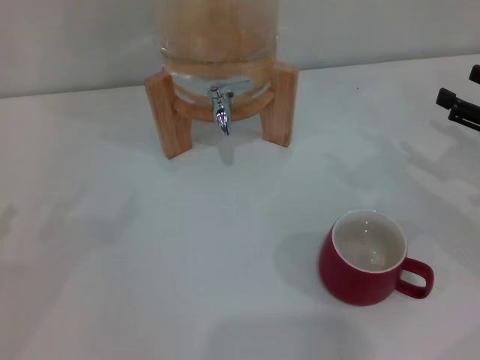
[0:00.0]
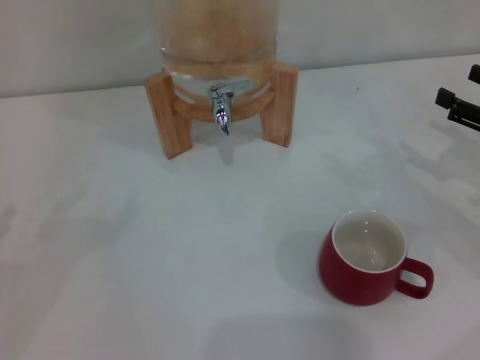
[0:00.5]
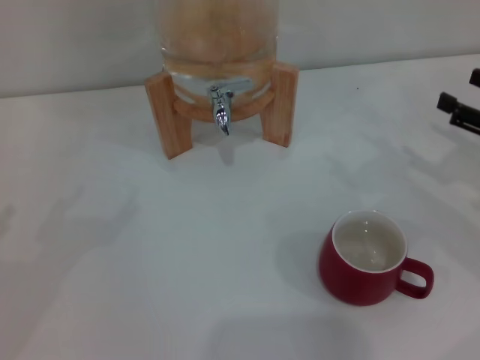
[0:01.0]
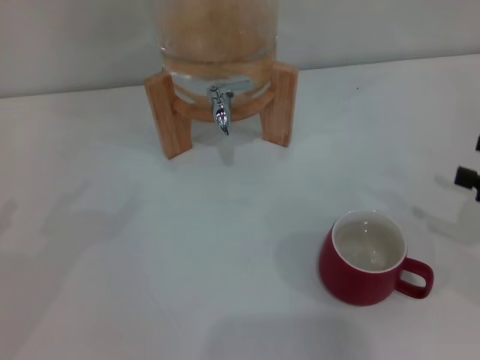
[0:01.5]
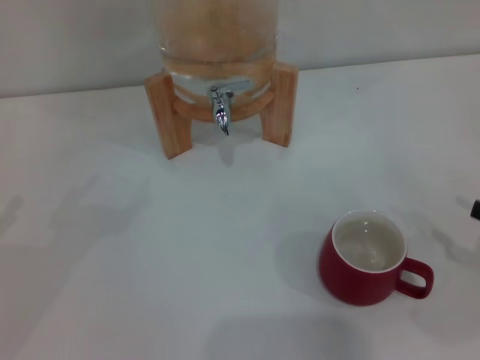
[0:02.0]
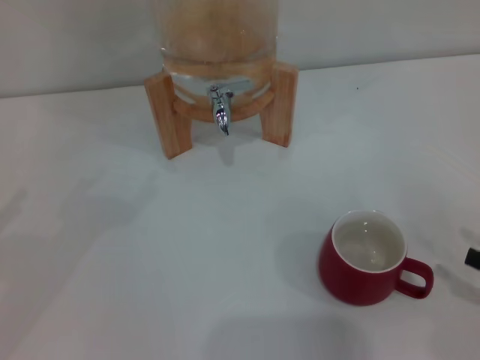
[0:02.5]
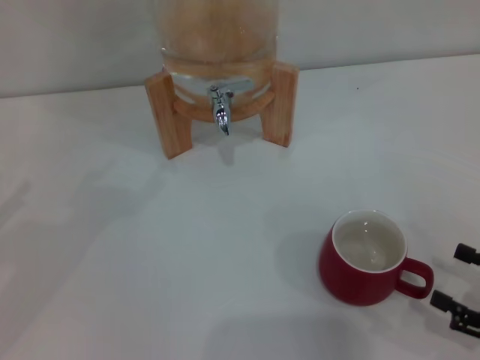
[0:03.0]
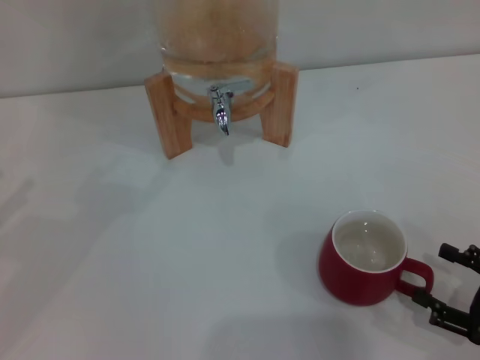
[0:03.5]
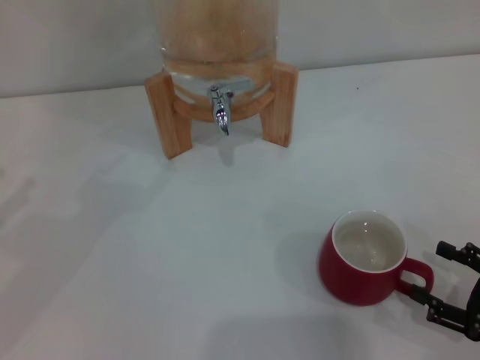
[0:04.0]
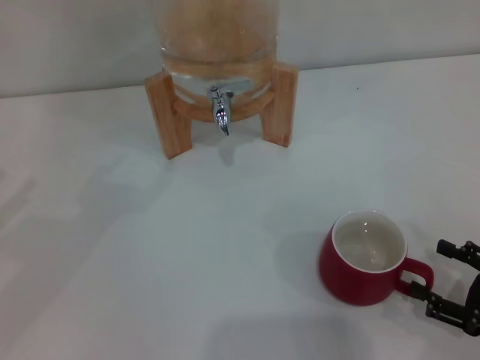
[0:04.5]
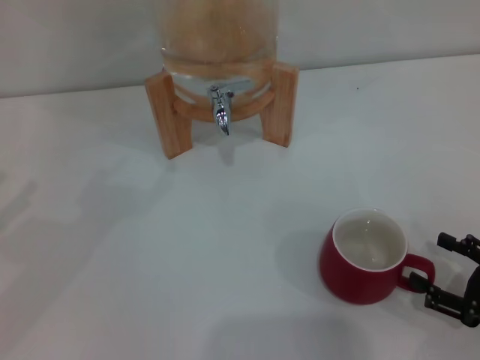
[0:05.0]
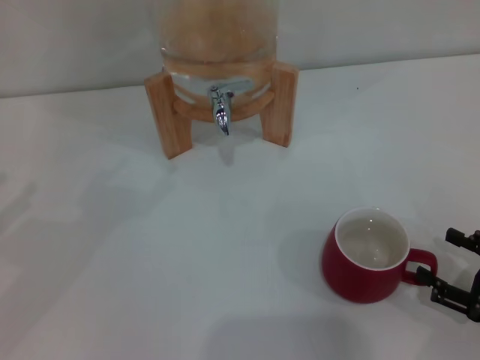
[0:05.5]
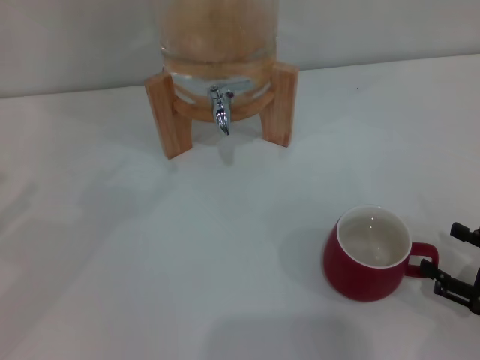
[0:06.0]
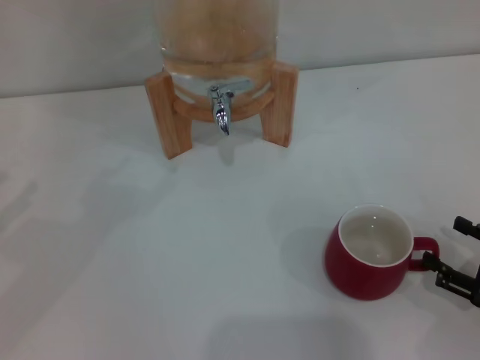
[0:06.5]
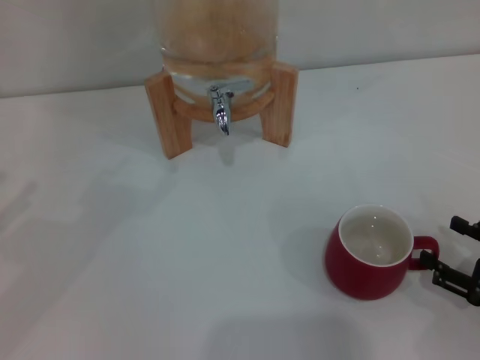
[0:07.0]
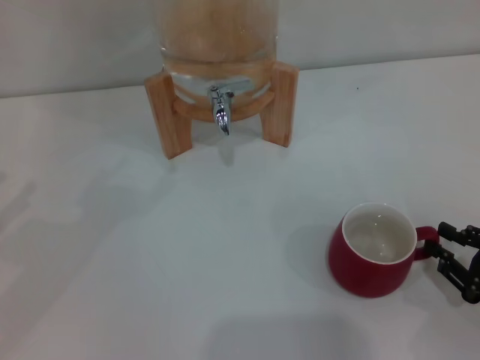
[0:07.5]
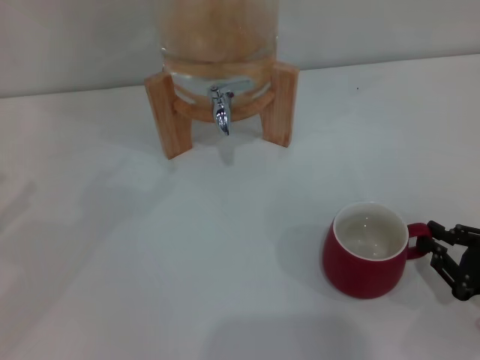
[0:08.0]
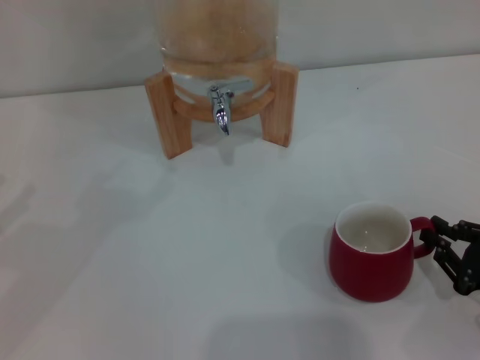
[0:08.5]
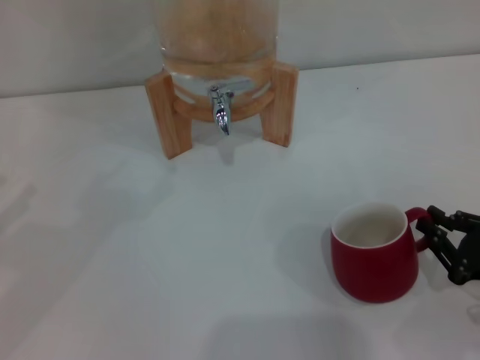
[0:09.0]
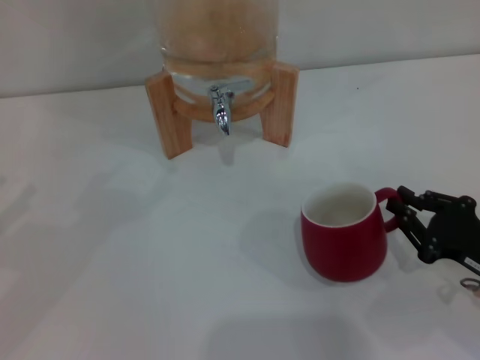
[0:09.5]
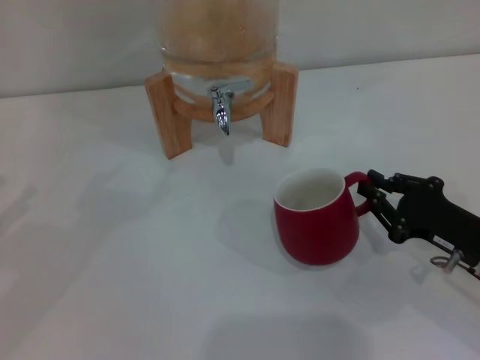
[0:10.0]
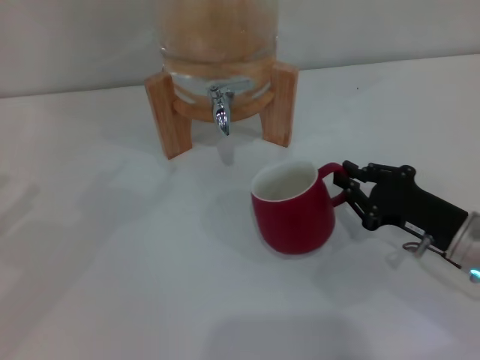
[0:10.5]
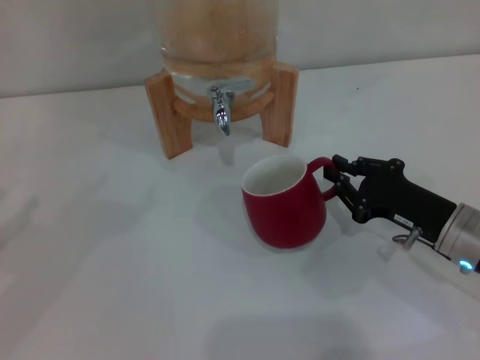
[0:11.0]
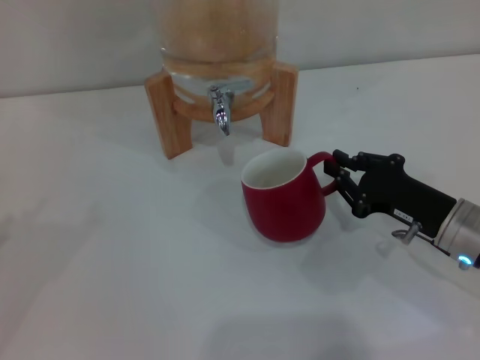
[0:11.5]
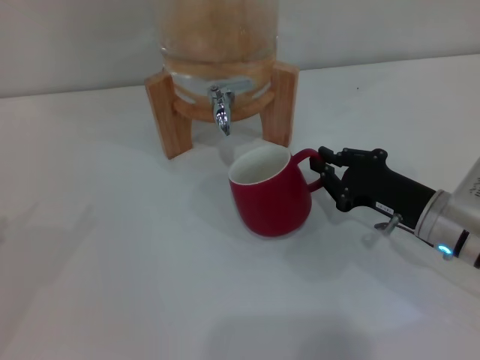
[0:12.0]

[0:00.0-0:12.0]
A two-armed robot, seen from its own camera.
Task of the whole recording: the right gripper pick up the red cup and place it horizontally under the faucet, the left gripper turn on the faucet to fill the cup, and then turn off the faucet.
0:00.0 to 0:02.0: The right gripper travels backward by some 10 cm.
0:02.0 to 0:04.0: The right gripper travels downward and to the left by roughly 10 cm.
0:04.0 to 0:06.0: The grippers move only a little.
0:06.0 to 0:08.0: The right gripper closes its fingers.
0:08.0 to 0:10.0: The right gripper is displaced forward by some 5 cm.
0:10.0 to 0:12.0: The right gripper is displaced forward by approximately 5 cm.

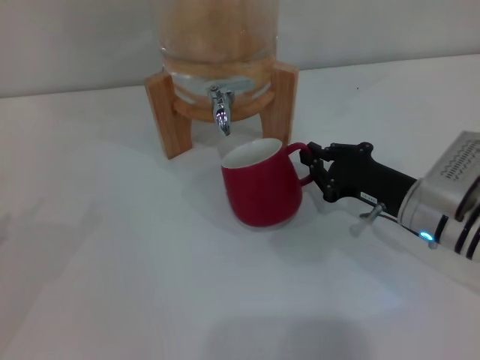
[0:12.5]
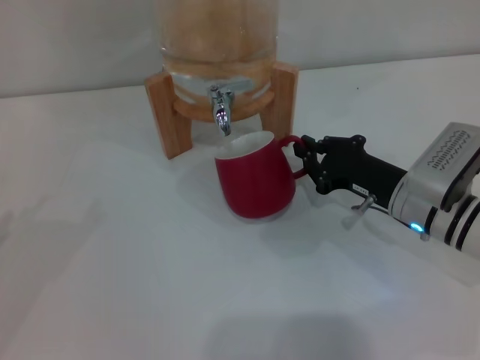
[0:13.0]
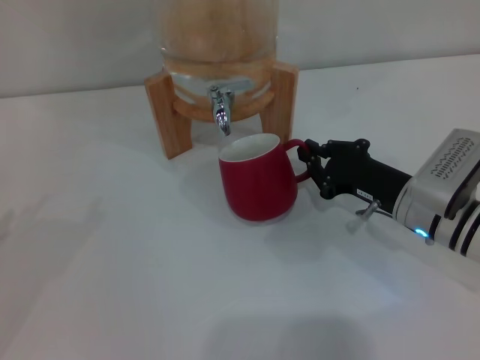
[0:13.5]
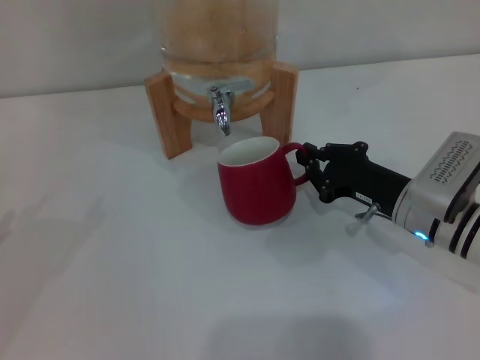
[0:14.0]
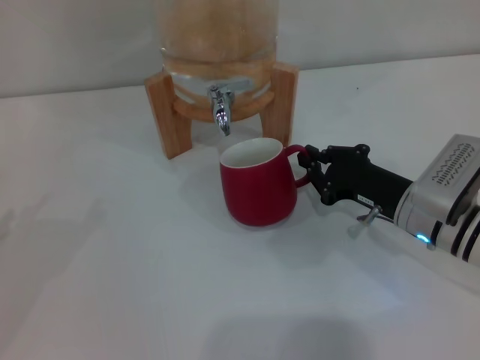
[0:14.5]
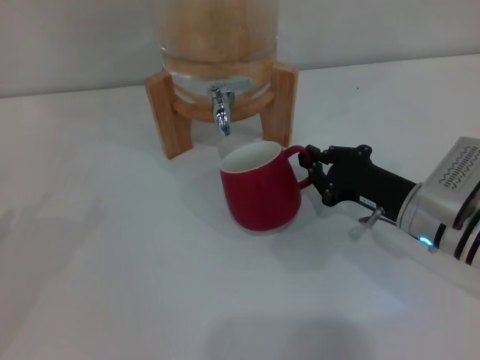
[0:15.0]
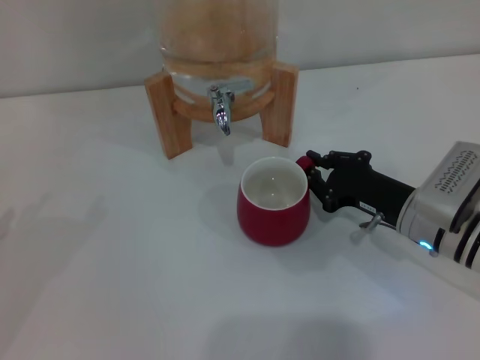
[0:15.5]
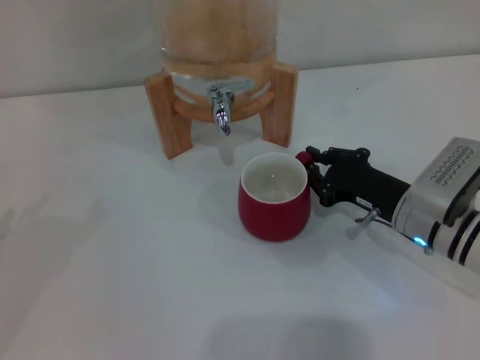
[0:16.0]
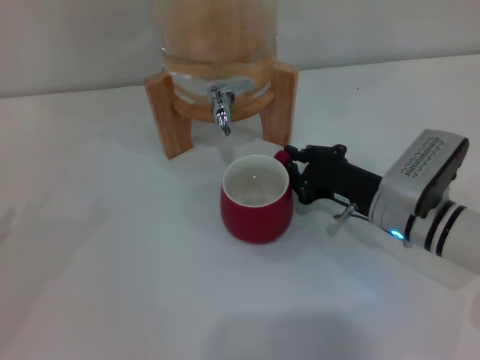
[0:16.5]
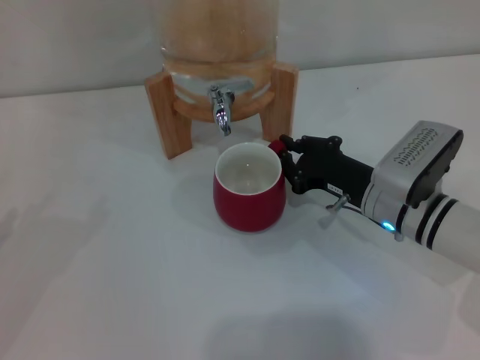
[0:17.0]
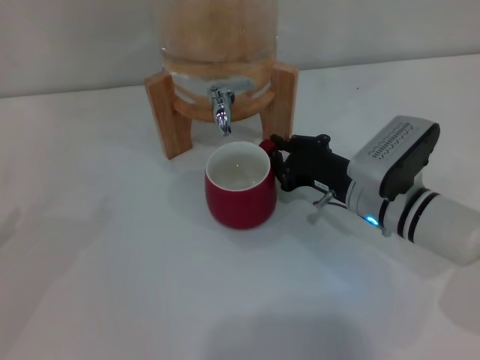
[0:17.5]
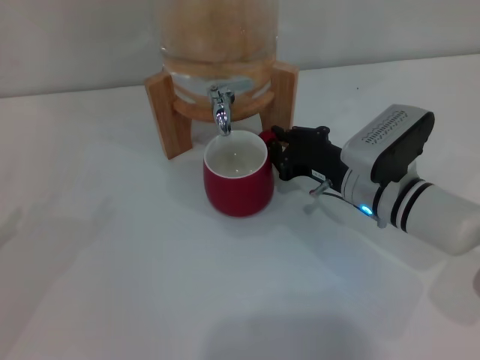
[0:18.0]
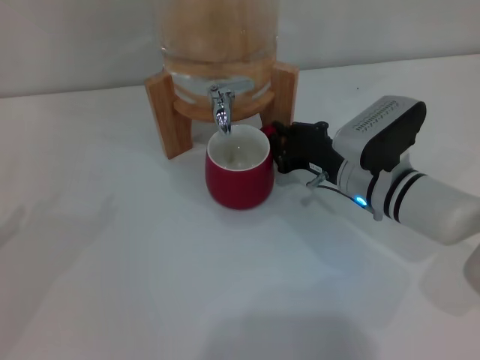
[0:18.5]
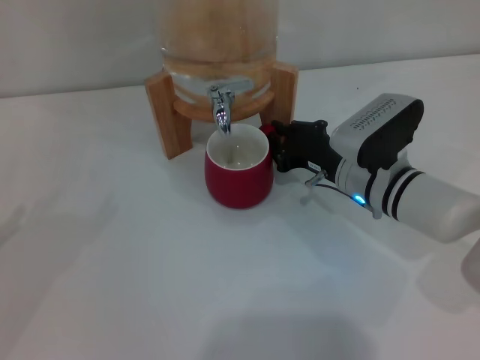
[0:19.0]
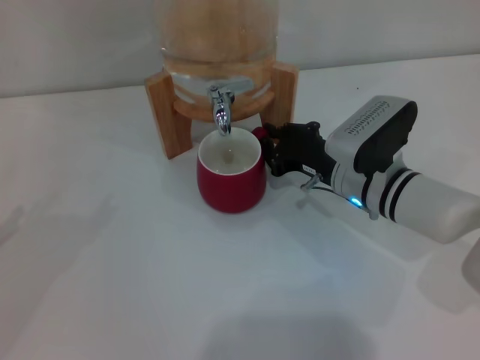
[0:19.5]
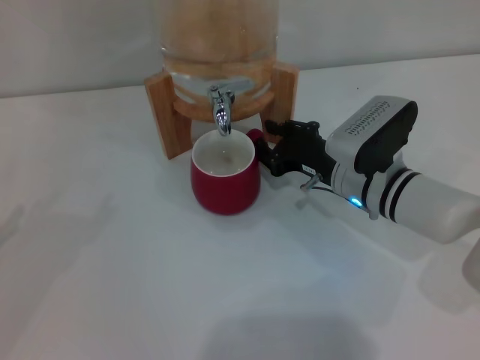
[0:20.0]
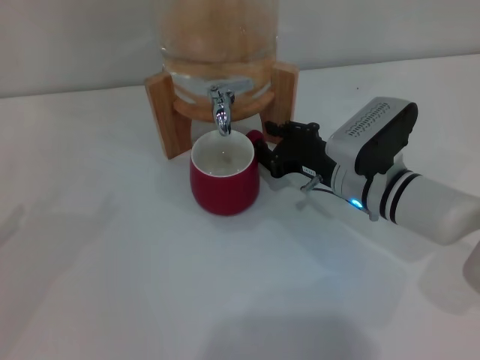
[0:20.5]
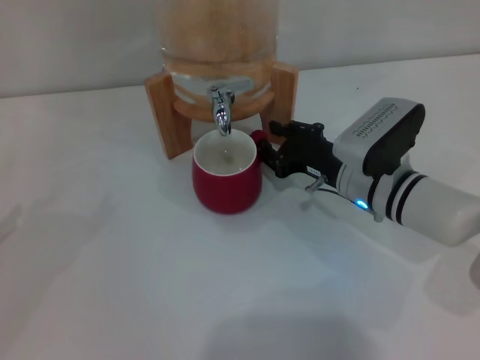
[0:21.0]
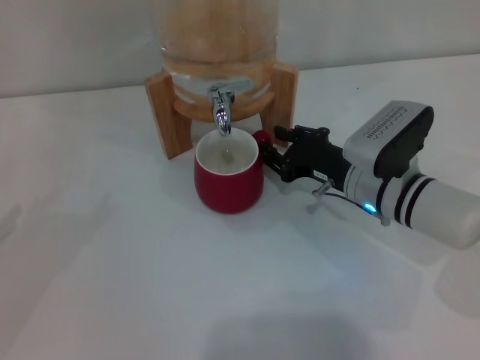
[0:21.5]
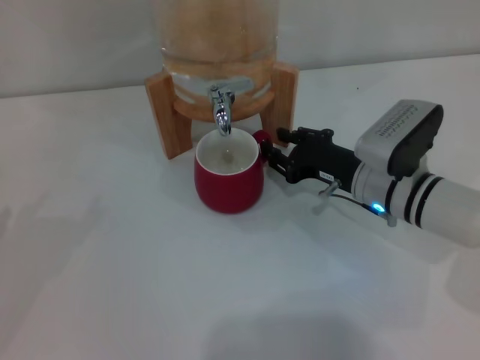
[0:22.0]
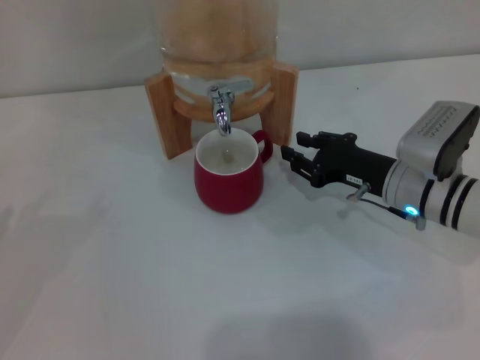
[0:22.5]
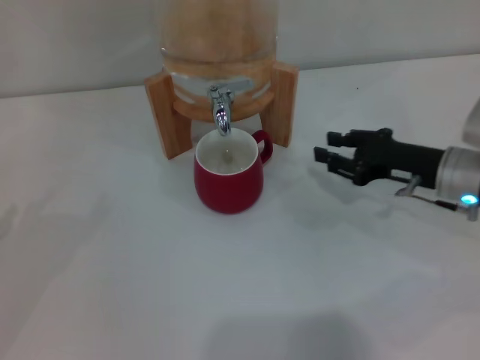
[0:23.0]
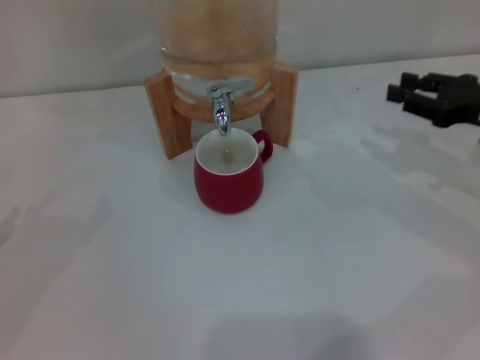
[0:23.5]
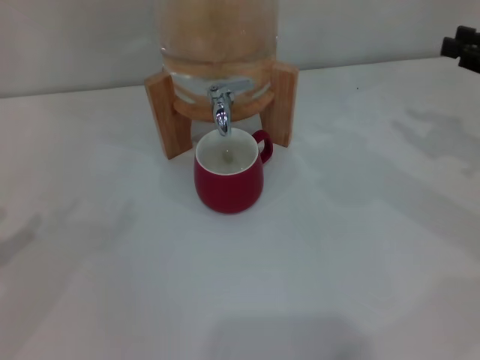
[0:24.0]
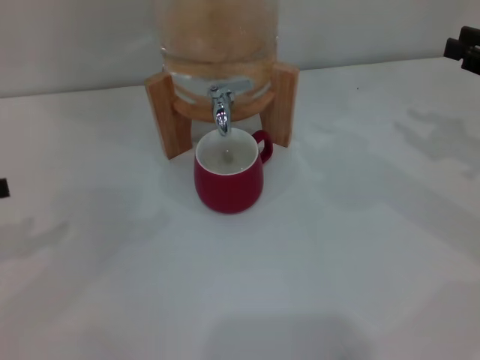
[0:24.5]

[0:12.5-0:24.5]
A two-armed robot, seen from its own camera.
Task of the whole recording: the right gripper pick up the red cup and place it horizontally under the faucet, the left gripper turn on the faucet to fill the cup, and then turn off the faucet.
Step, 0:12.5 to 0:22.0: Move the cup beneath the water dispenser nozzle with the right gripper.
0:12.5 to 0:14.5: The two grippers keep their place.
0:14.5 to 0:16.5: The grippers make only small movements.
0:16.5 to 0:18.5: The grippers stay close to where they were, moving slightly.
0:18.5 to 0:20.5: Both grippers stay about where they are.
0:20.5 to 0:22.5: The right gripper goes approximately 5 cm to the right.
0:22.5 to 0:24.5: The right gripper shifts roughly 20 cm to the right and upward. Meanwhile the left gripper shifts some 5 cm upward.

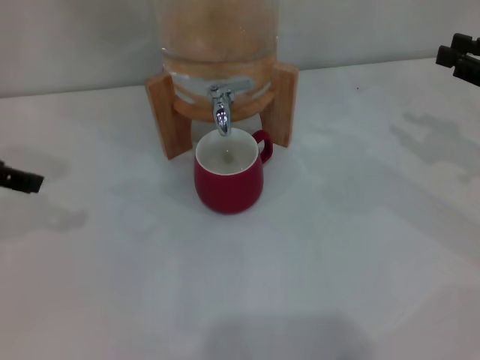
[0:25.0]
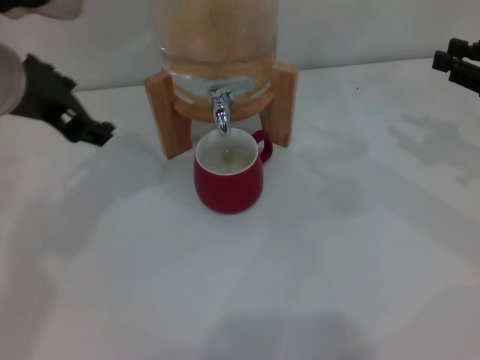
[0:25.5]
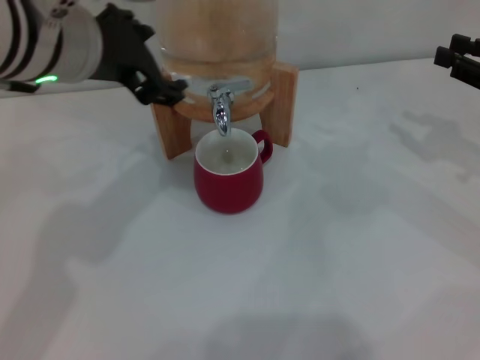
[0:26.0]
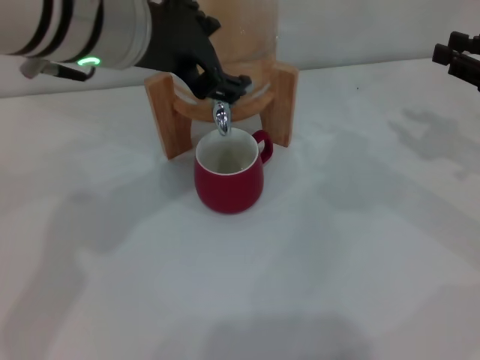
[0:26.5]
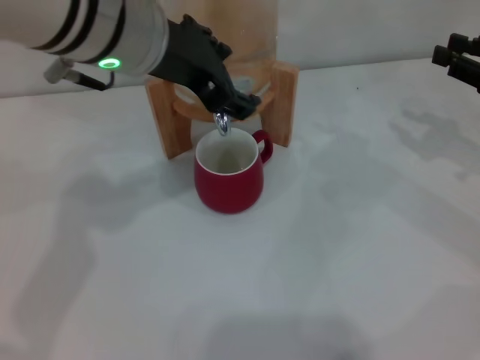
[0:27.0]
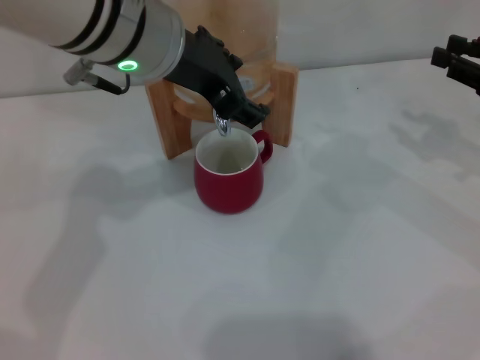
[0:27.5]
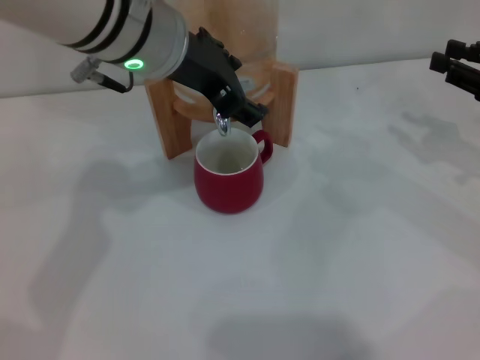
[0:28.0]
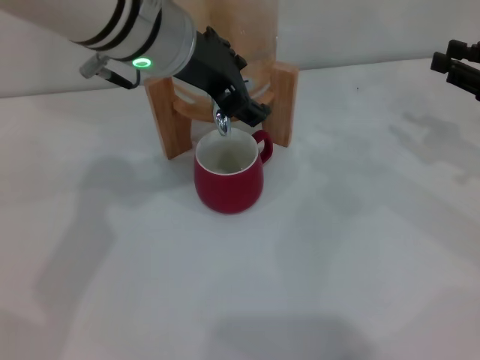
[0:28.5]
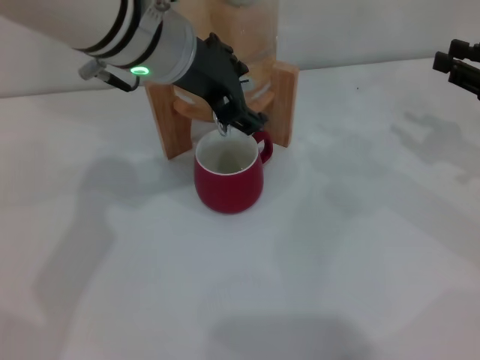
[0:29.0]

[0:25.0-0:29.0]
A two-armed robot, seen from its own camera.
Task of the whole recording: the right gripper pick up the red cup and place it horizontally under the faucet, the left gripper turn on the faucet to fill the cup, and then turn off the faucet.
0:25.0 to 0:27.0: The left gripper goes about 20 cm to the right.
0:27.0 to 0:29.0: The grippers make only small movements.
